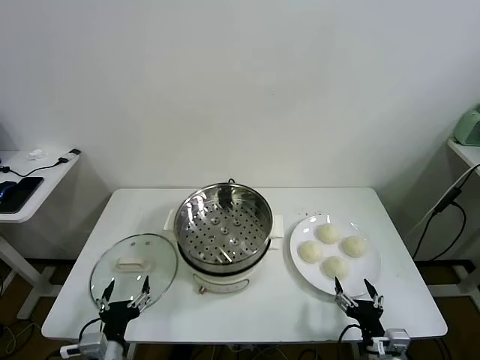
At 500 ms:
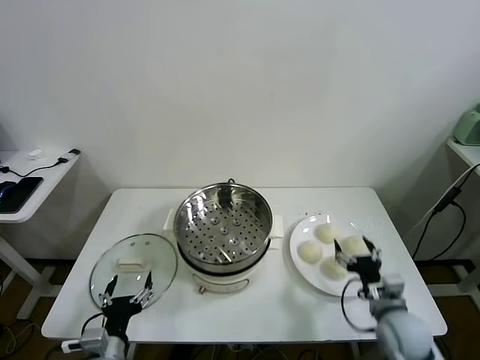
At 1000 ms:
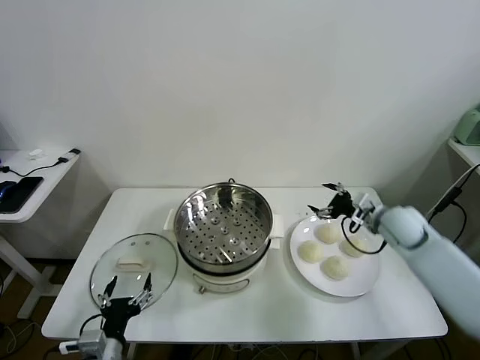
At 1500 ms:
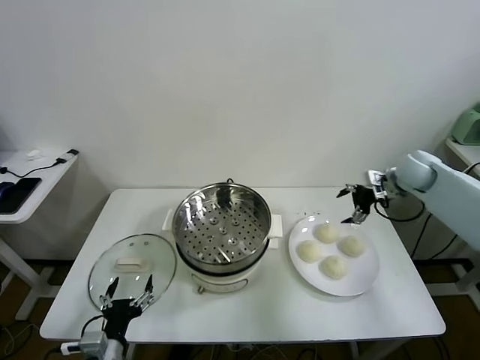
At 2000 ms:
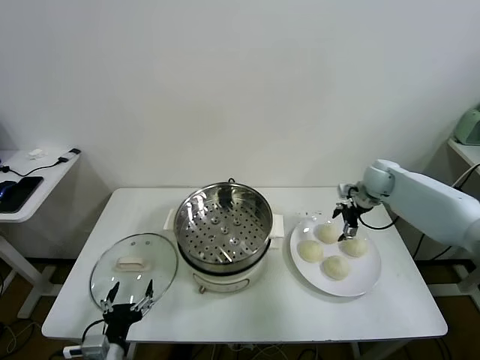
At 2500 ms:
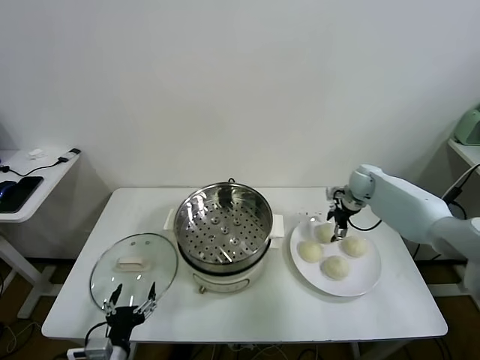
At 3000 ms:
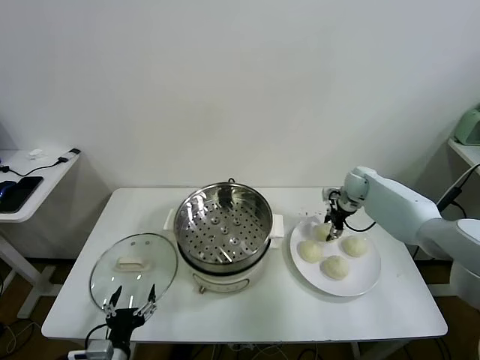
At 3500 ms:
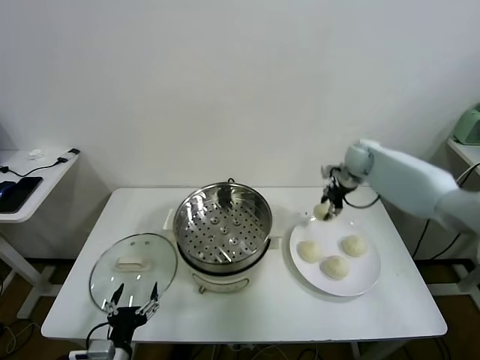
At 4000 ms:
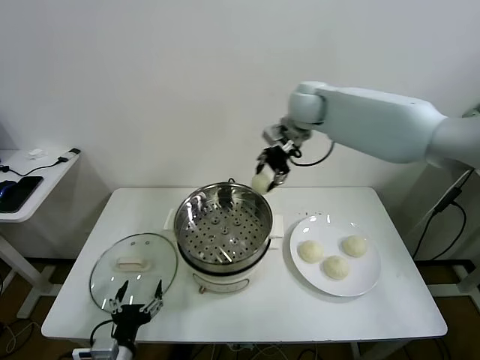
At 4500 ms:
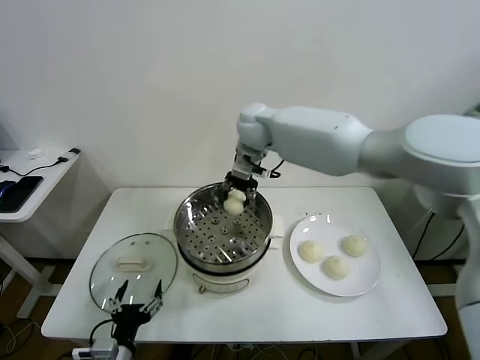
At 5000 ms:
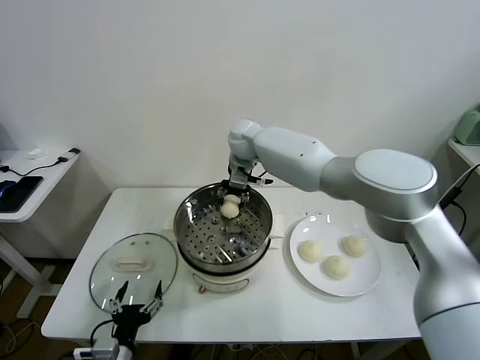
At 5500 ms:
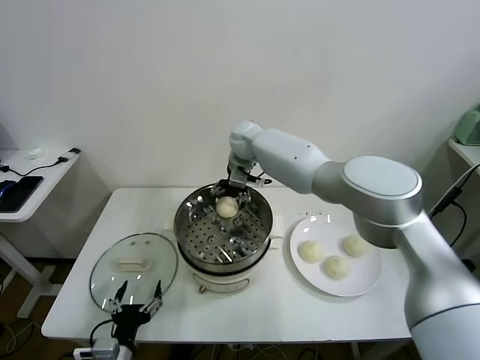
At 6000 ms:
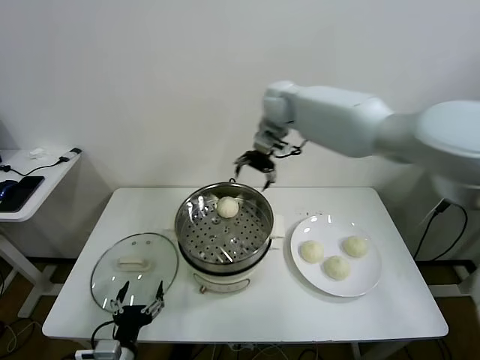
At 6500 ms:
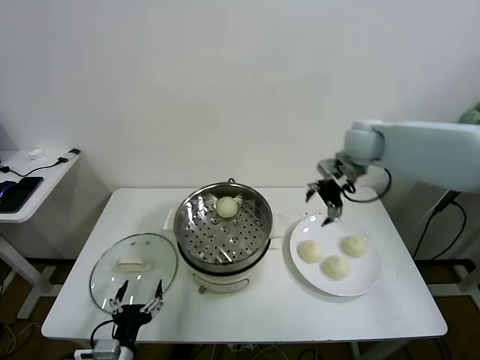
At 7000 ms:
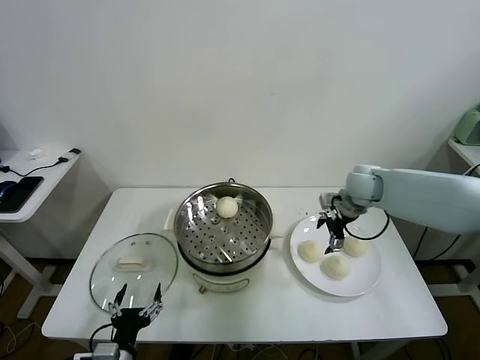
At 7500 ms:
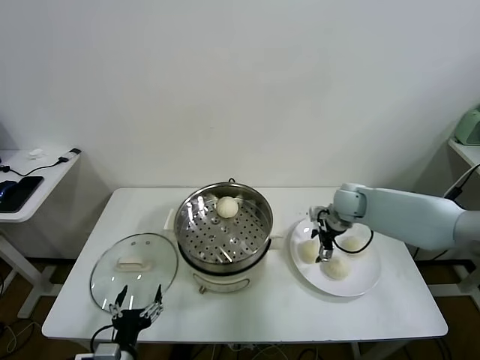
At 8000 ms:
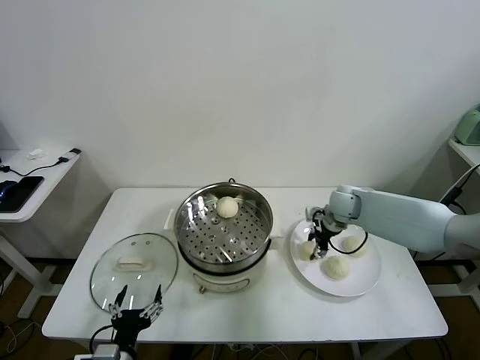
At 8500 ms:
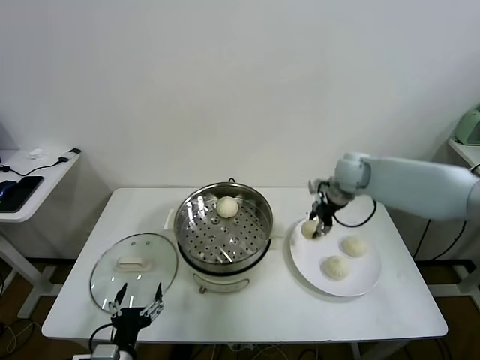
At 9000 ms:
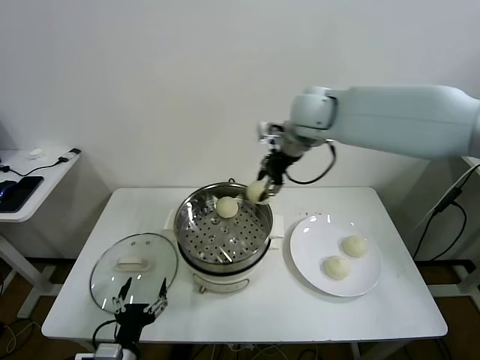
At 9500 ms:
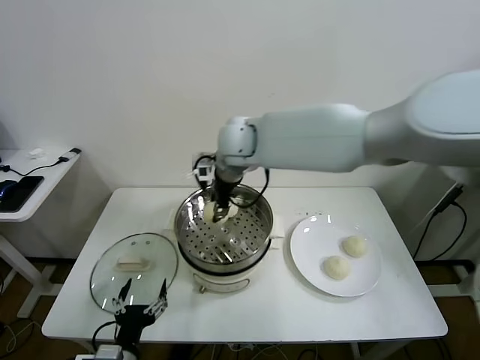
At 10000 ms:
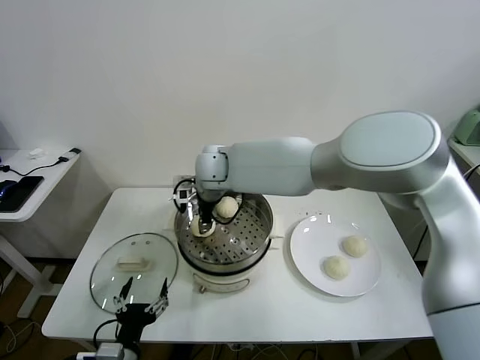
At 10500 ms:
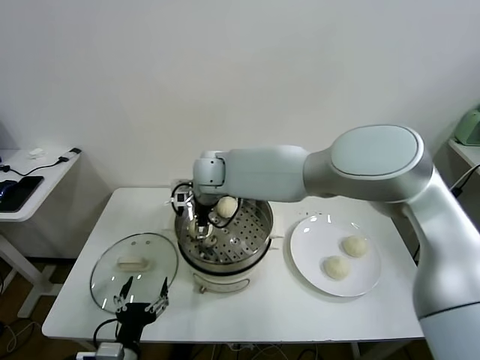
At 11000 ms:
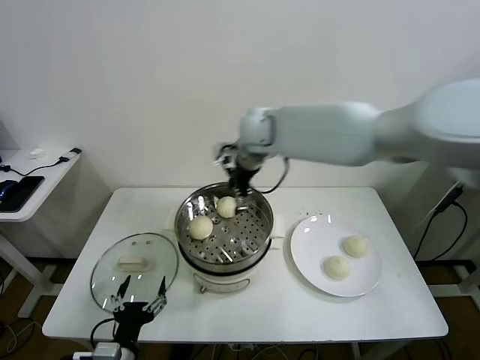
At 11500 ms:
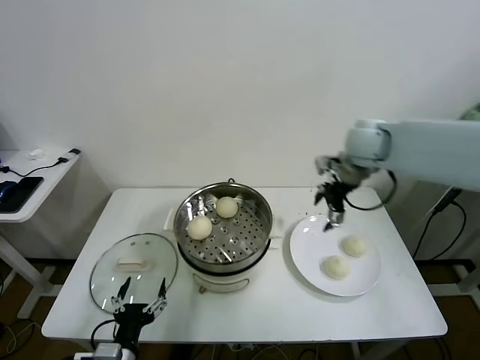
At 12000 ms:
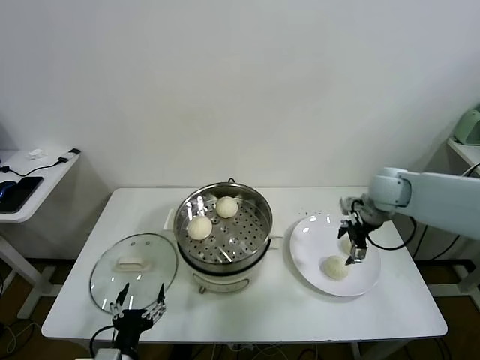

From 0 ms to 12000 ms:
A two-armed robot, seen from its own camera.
Task of the whole recording: take steamed baozi put them in steamer.
Step, from 0 ms to 2500 ms: Grasp the baozi in the plate with right gripper.
Step, from 3000 ms to 5500 ms: Place the baozi on the steamer with right gripper.
Step, from 6000 ms to 7500 ms: Grasp the baozi in the plate with right gripper.
Step, from 8000 ms to 10000 ms: Place the baozi on the steamer with right gripper.
From 2000 ms to 4000 ms: The right gripper shifts roughly 35 cm to the left and upward, and closes its fingers.
From 4000 ms to 6000 ms: The right gripper moves approximately 10 cm to the left and comes back, and opens up.
From 6000 ms to 8000 ms: The right gripper is displaced downward and to the right by roughly 30 cm, and closes its fingers.
From 8000 ms to 10000 ms: The right gripper is displaced to the left and upward by some 35 cm.
From 10000 ms to 12000 ms: The right gripper goes approximately 40 cm to the right, and opens.

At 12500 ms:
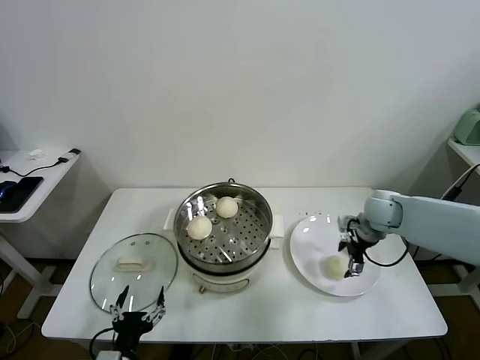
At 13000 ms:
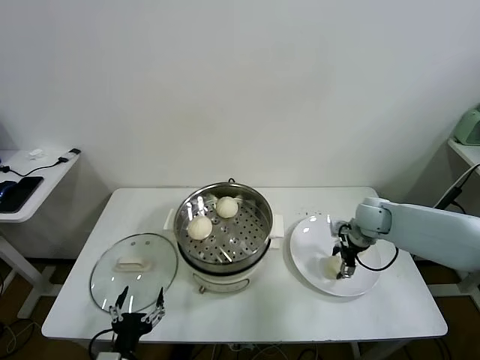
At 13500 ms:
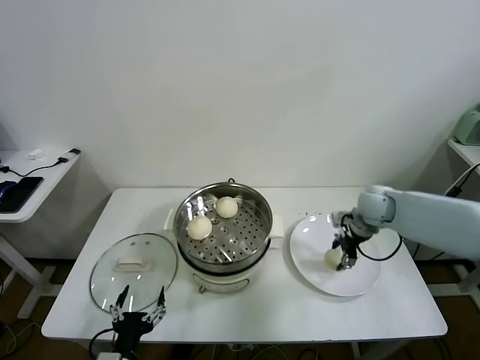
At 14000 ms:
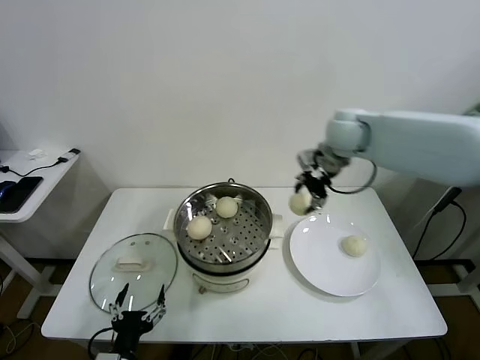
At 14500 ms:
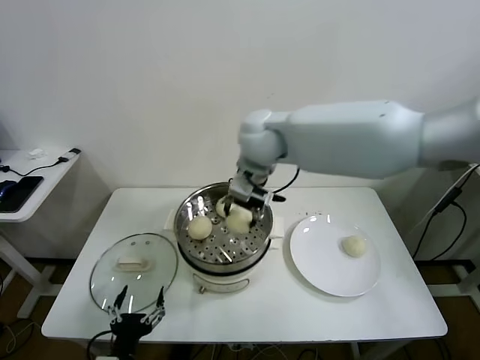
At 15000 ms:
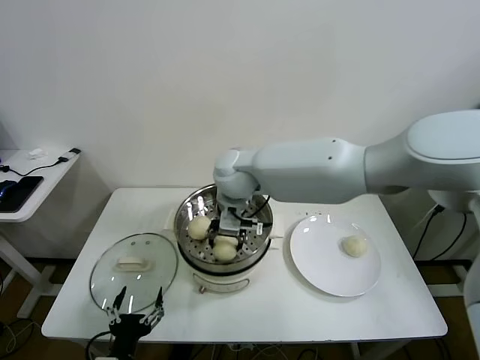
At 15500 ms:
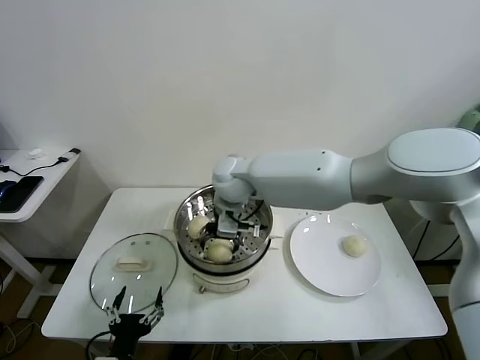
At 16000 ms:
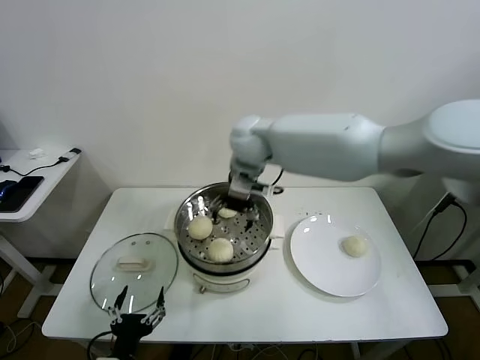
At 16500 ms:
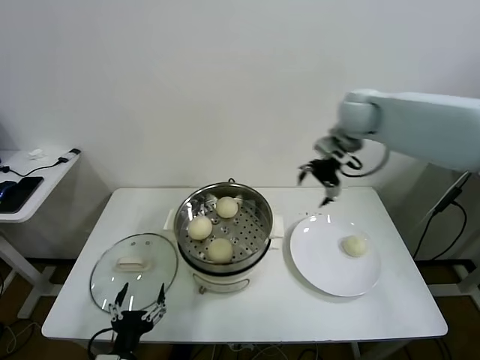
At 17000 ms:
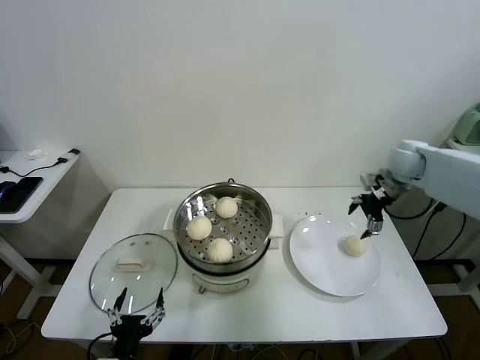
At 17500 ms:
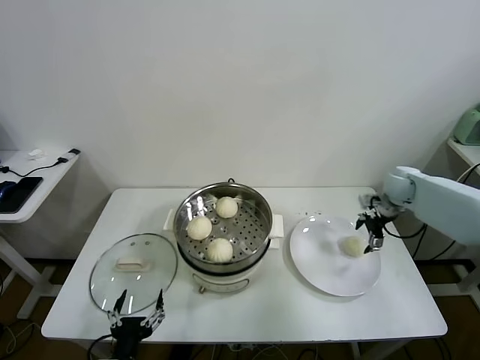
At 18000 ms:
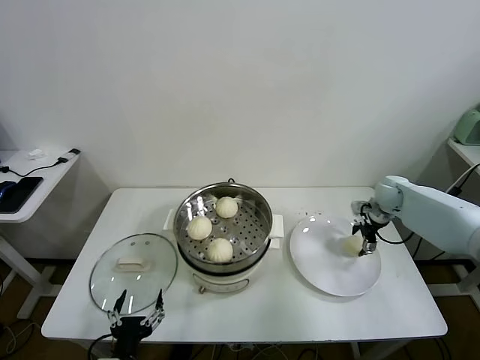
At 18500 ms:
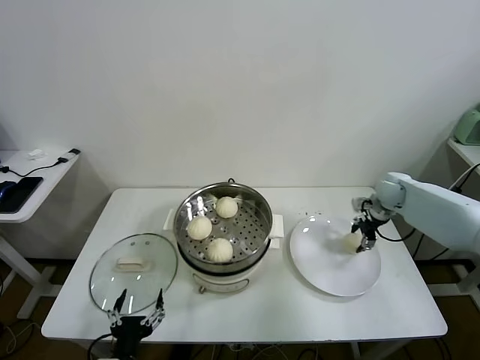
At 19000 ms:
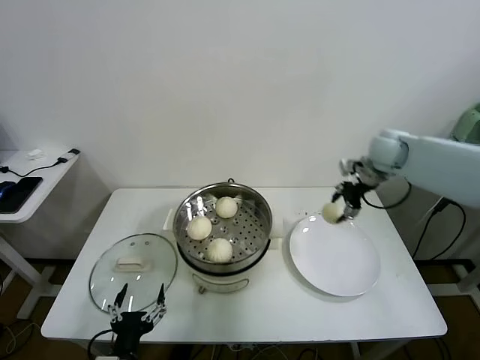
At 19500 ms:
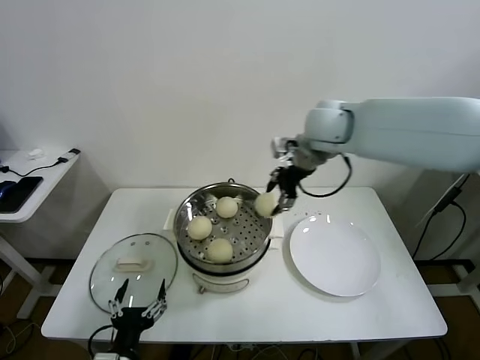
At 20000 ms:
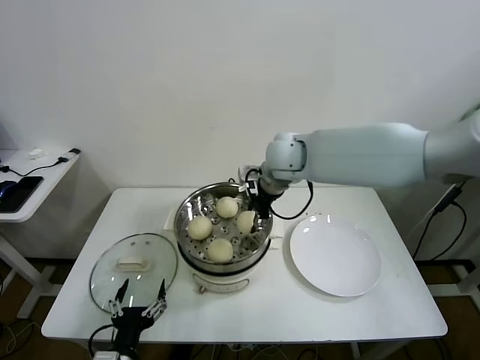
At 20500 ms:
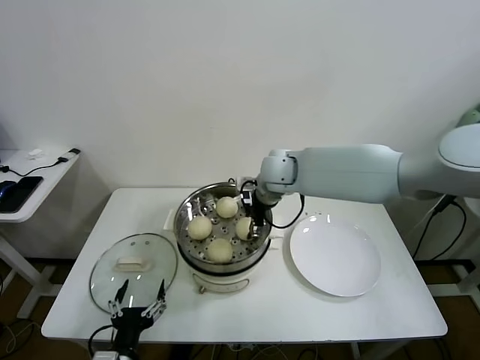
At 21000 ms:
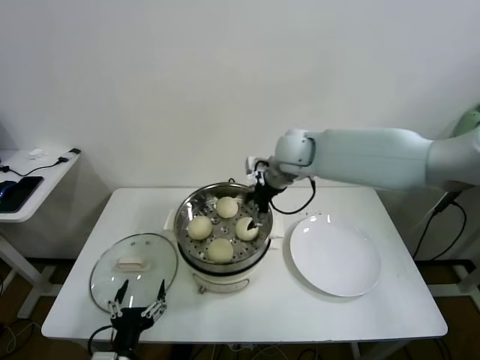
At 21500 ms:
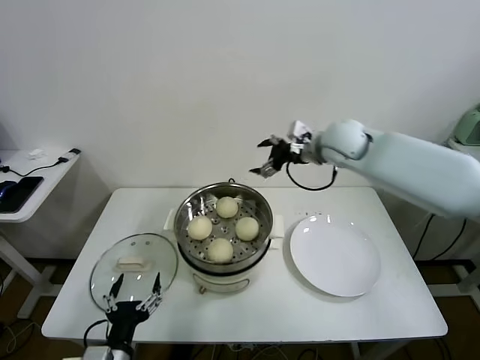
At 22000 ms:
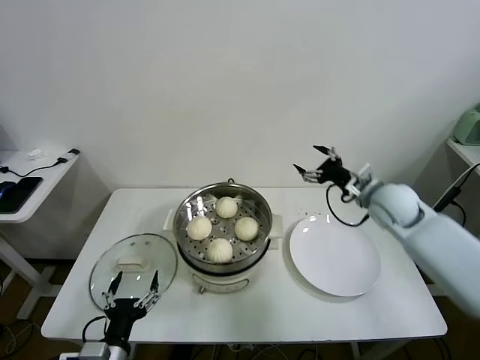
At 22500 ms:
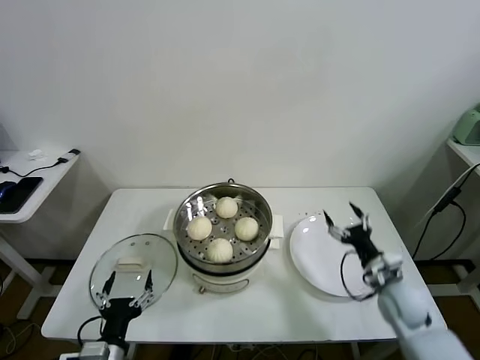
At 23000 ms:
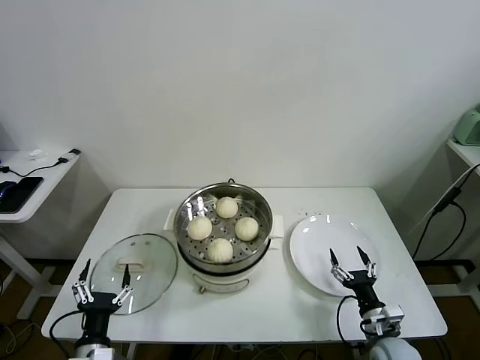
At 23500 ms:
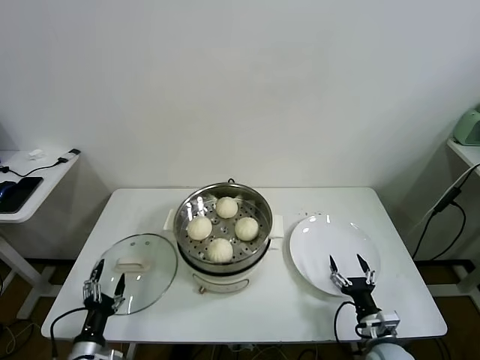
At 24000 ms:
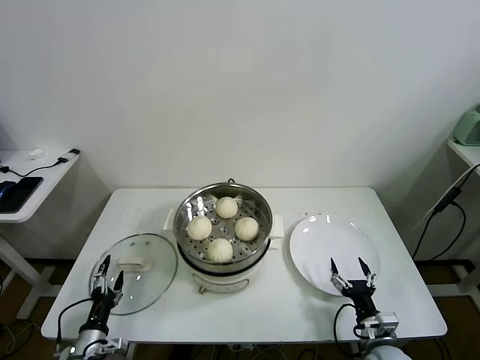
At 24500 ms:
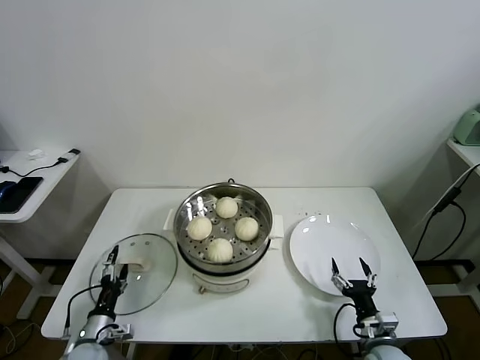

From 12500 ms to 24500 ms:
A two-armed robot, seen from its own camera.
Task of the whole recording: take steamed baozi put them in steamer.
Step, from 13500 ms to 15500 ms: Place the baozi on the steamer with right gripper.
Step, from 16000 ms to 18000 ms: Grasp the baozi in the plate with right gripper.
Step, from 18500 ms to 20500 ms: Place the baozi on the steamer with right gripper.
From 12500 ms to 14500 ms: The right gripper goes some 40 cm to the left and upward, and closes.
From 14500 ms to 16500 ms: The right gripper moves to the right, roughly 25 cm, and opens up.
From 16500 ms to 18500 ms: The right gripper heads downward and to the right, covering approximately 25 cm, and closes.
From 18500 ms to 20500 ms: The right gripper heads to the left, covering about 30 cm.
From 20500 ms to 22500 ms: The right gripper is displaced to the right, downward and backward by some 40 cm, and opens up.
From 22500 ms to 24500 ms: The left gripper is displaced downward, to the left and forward by roughly 20 cm. The right gripper heads backward and downward, covering some 15 cm.

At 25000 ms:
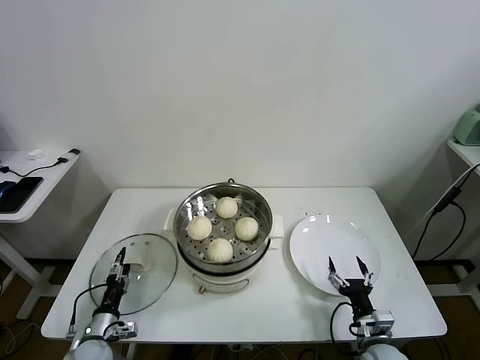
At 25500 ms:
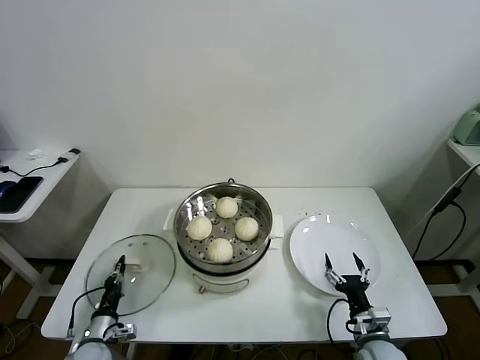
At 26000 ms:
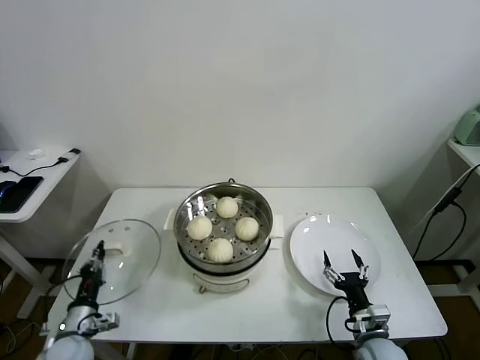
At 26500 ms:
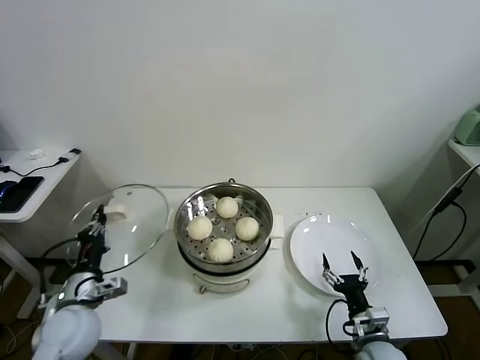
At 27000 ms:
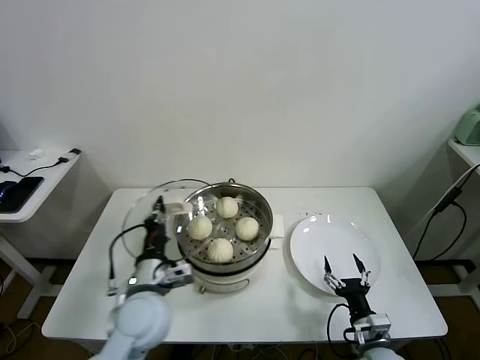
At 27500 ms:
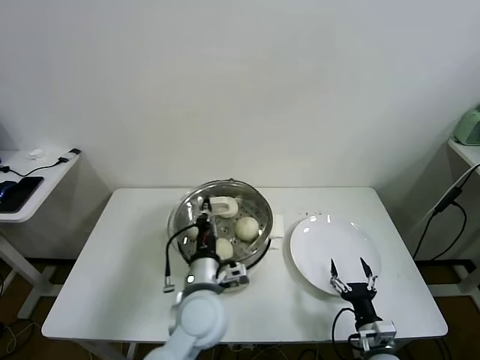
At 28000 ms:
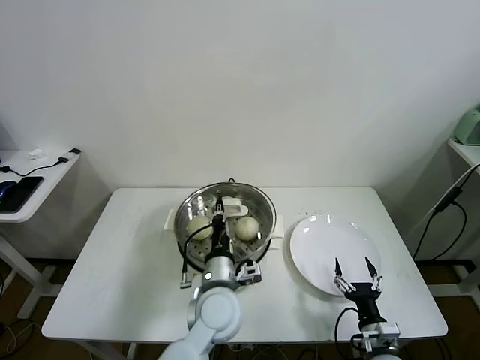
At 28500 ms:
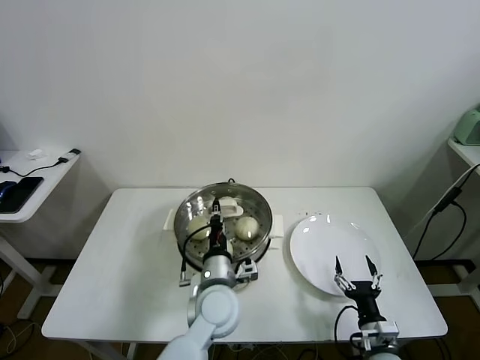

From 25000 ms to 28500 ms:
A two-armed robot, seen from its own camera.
Task of the whole recording: take steamed baozi put them in steamer.
From 25000 ms to 27000 ms: The left gripper is displaced upward and to the right by roughly 30 cm, and closes.
From 27000 ms to 28500 ms: The left gripper heads to the right, covering approximately 15 cm.
